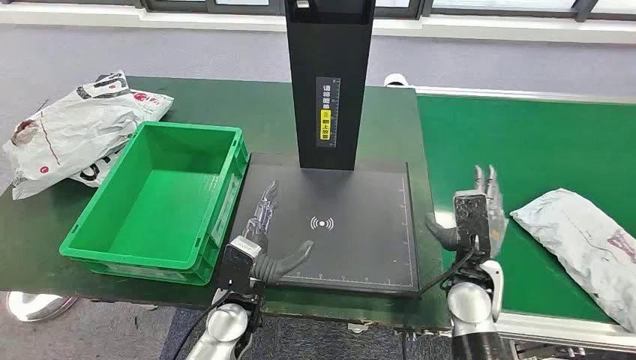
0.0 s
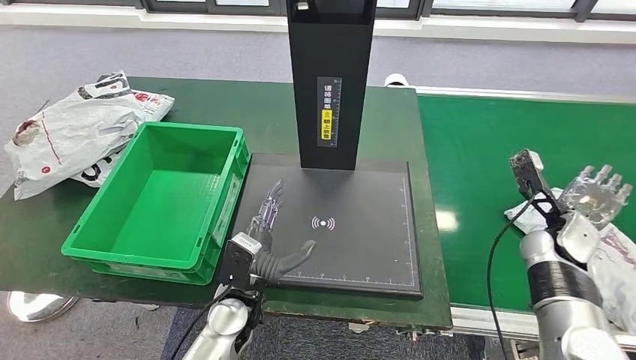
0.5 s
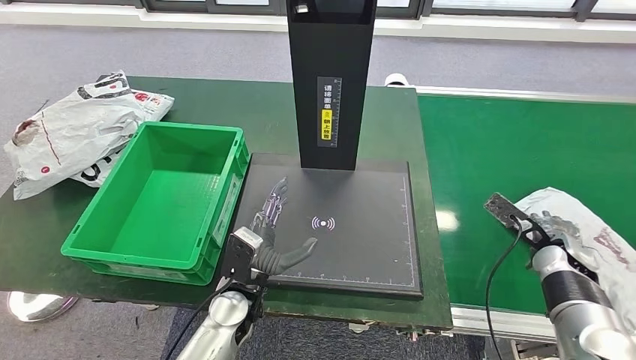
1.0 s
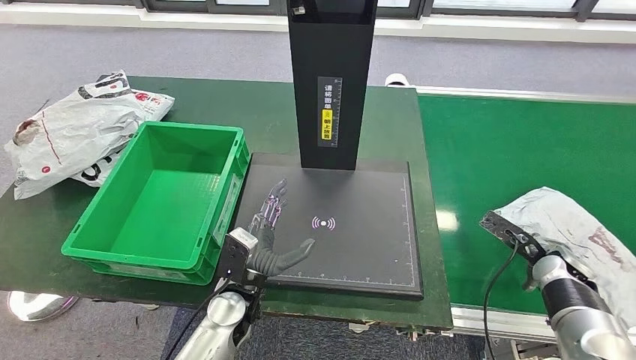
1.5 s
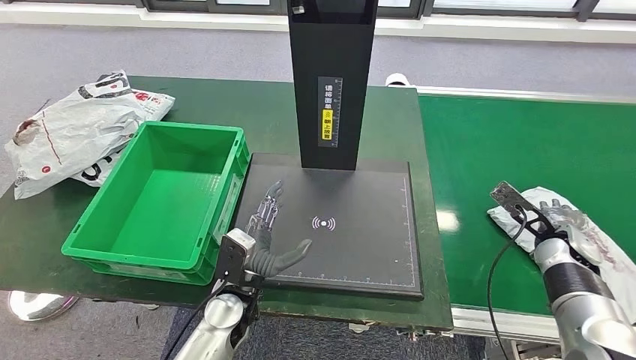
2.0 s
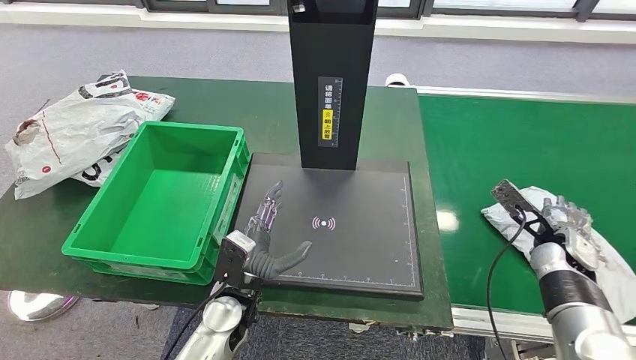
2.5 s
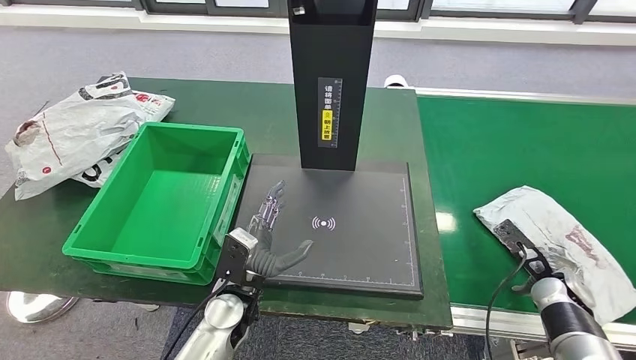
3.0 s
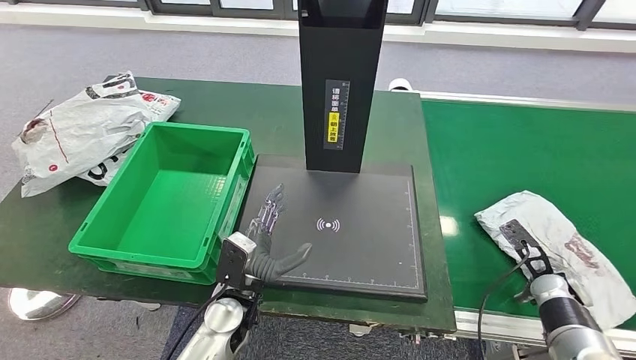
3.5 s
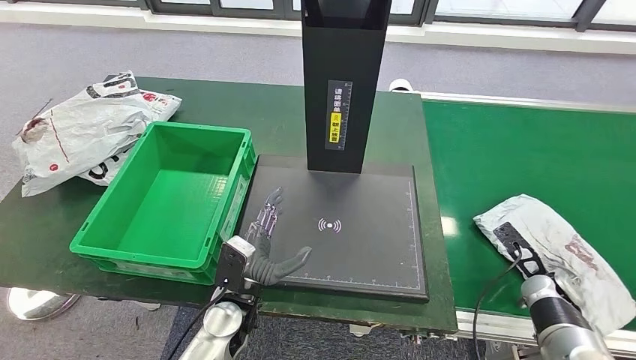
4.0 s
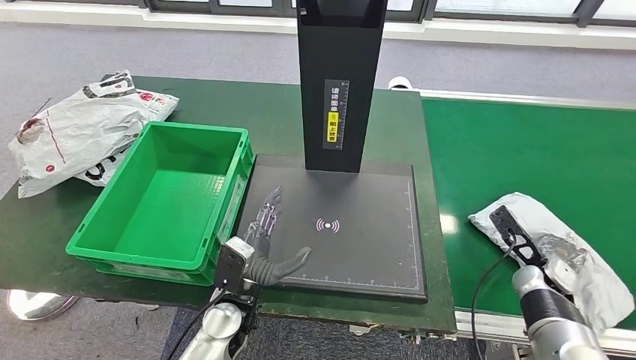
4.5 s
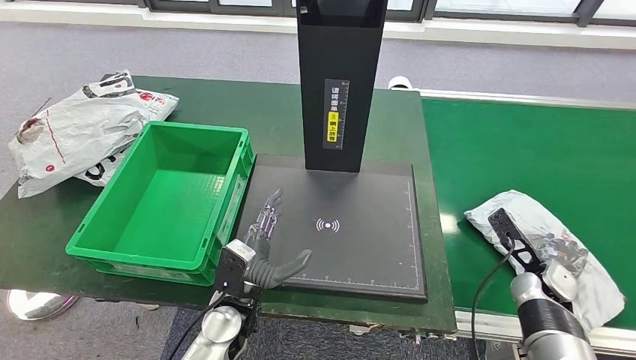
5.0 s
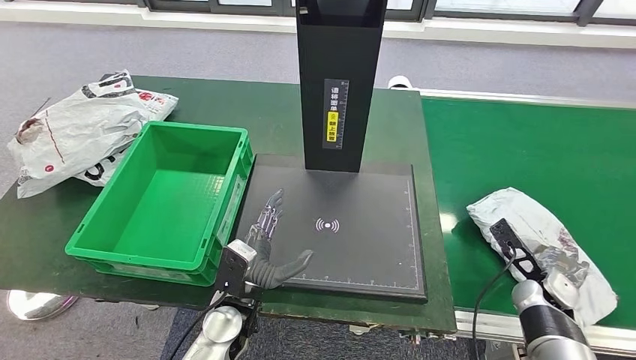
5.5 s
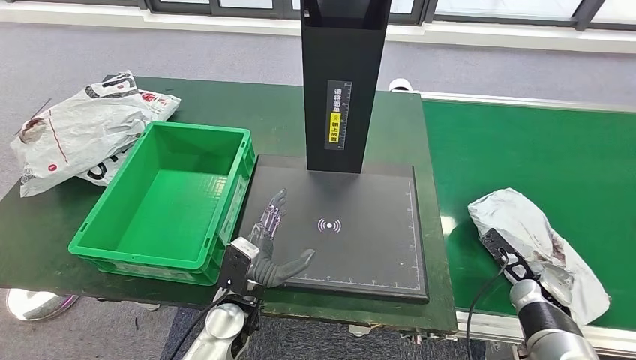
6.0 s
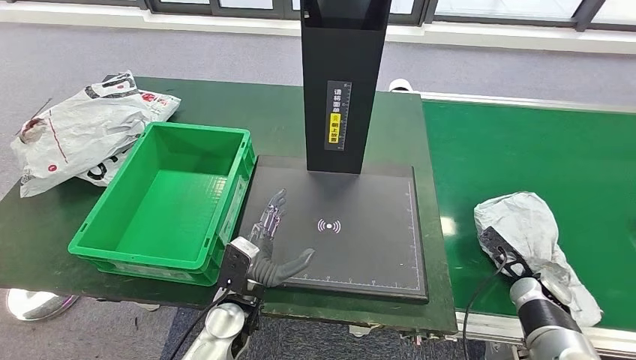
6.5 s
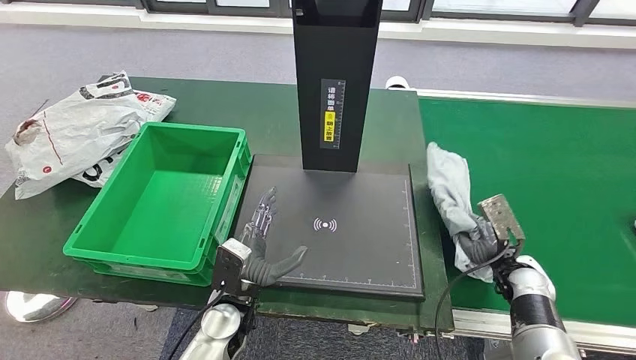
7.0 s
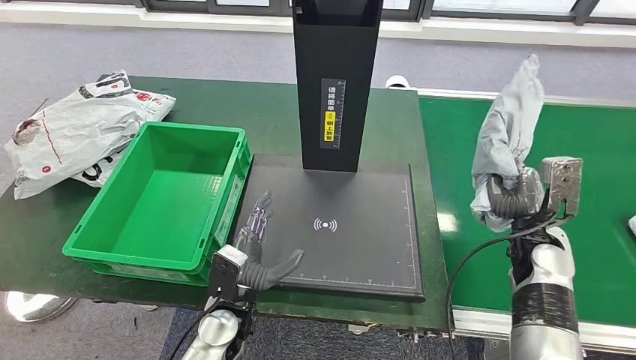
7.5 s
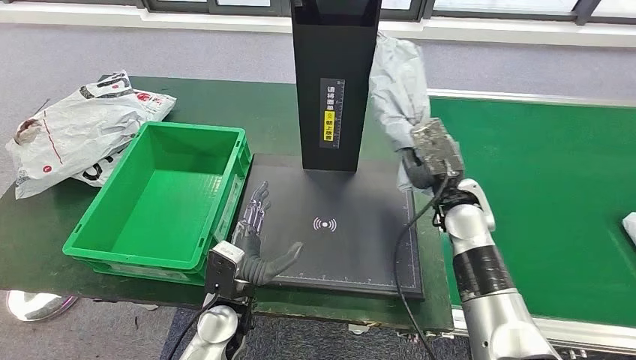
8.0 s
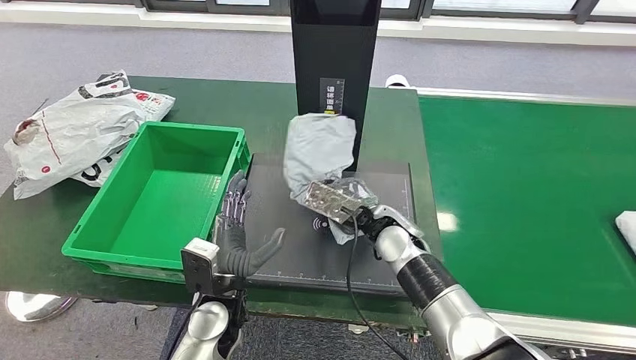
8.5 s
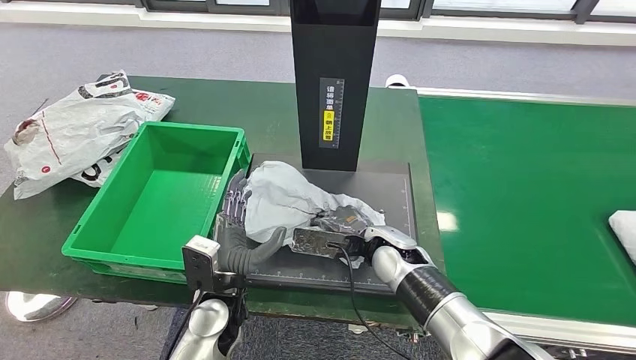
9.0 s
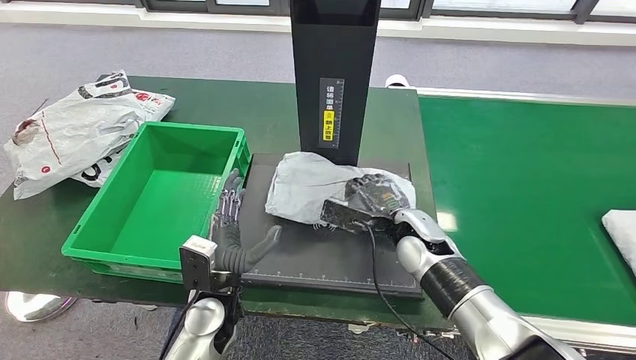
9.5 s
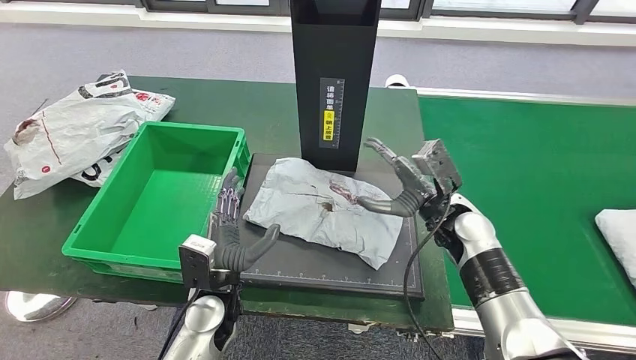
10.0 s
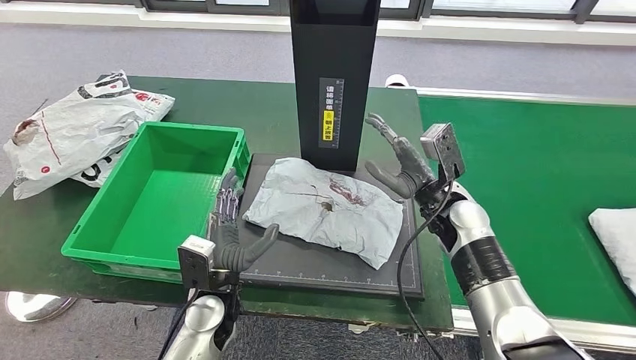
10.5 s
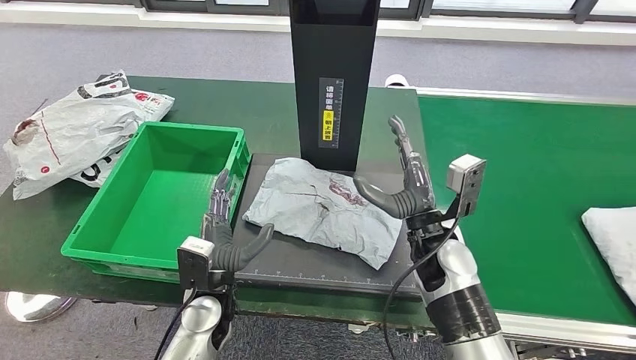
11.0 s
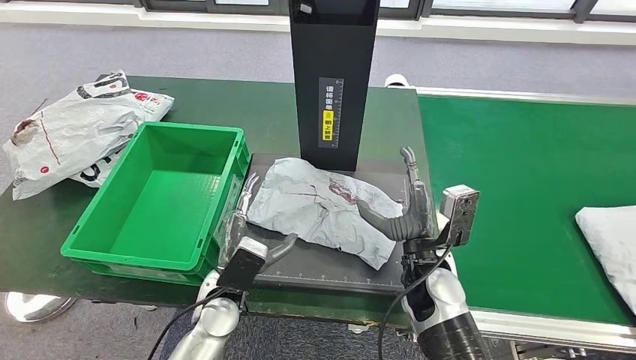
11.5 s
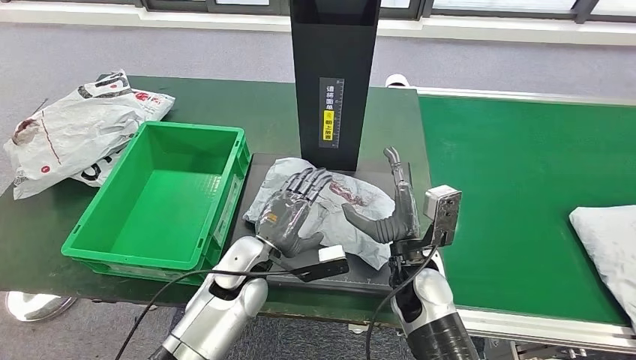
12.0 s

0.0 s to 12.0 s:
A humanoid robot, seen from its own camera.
Step, 0.0 to 7.5 s: Take the parcel off the conveyor belt.
Step, 8.0 to 10.5 s: Place the parcel onto the inbound machine.
4.0 to 6.0 s: The hands move only a little.
8.0 to 10.0 s: The right hand moves some 10 cm to the left and comes back.
10.0 to 12.0 s: The right hand travels to the left and backward by about 15 cm; the left hand is displaced forward by approximately 5 cm.

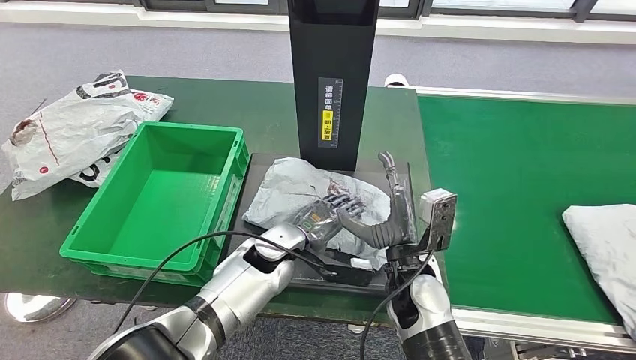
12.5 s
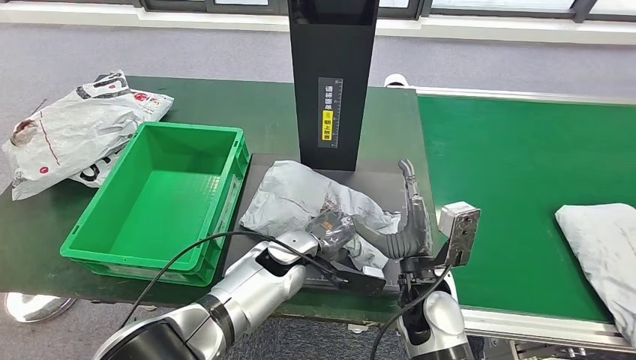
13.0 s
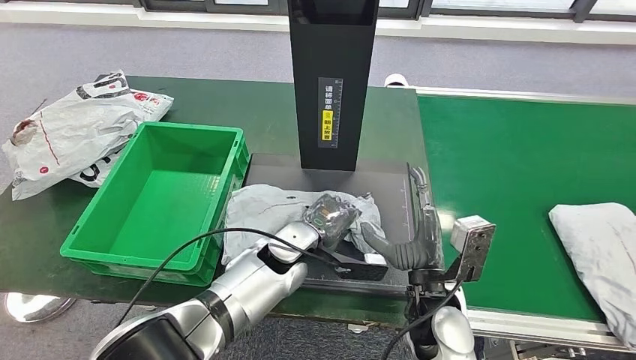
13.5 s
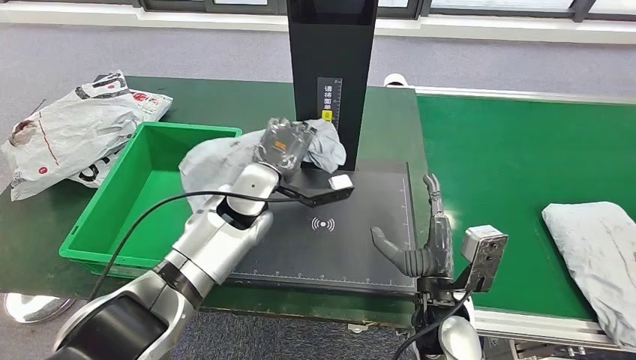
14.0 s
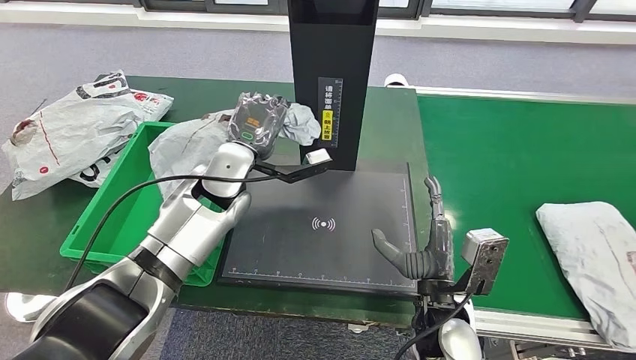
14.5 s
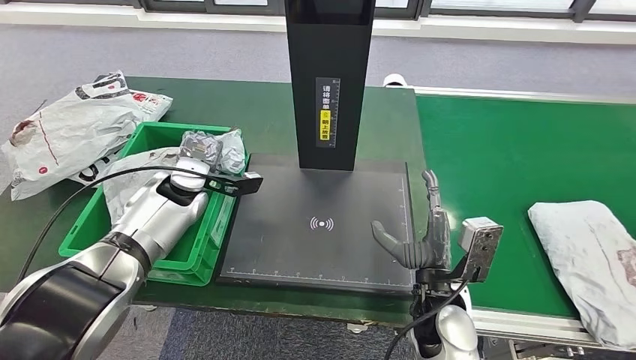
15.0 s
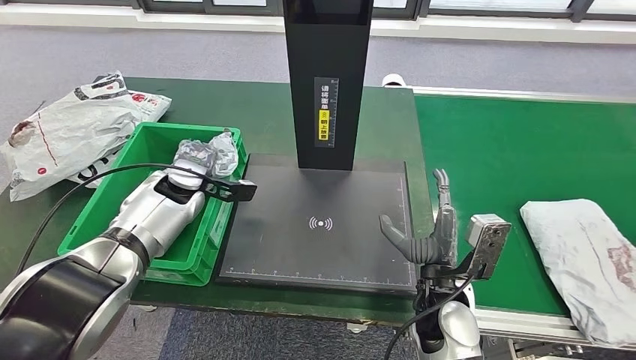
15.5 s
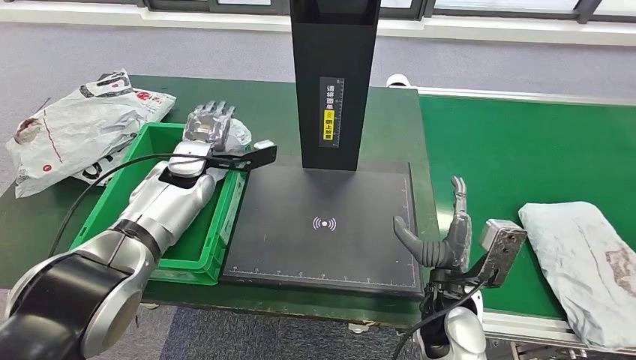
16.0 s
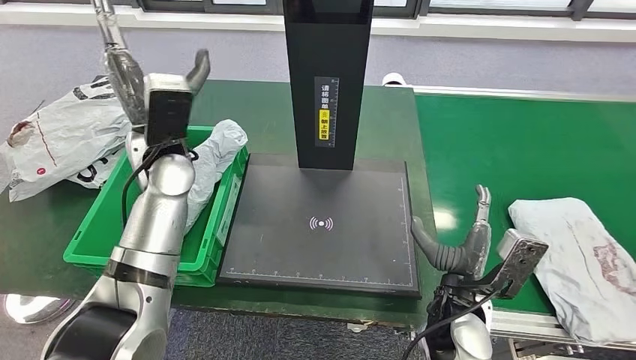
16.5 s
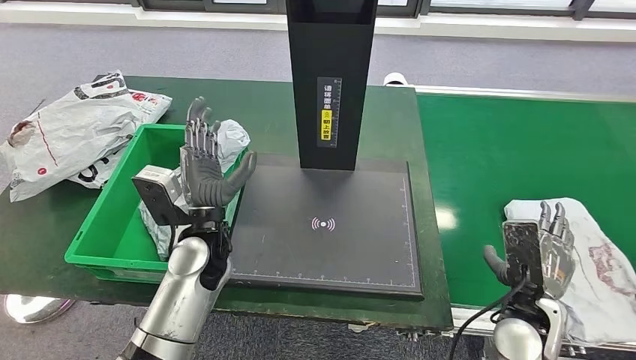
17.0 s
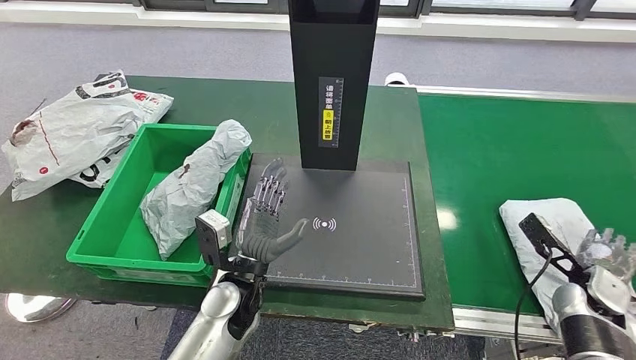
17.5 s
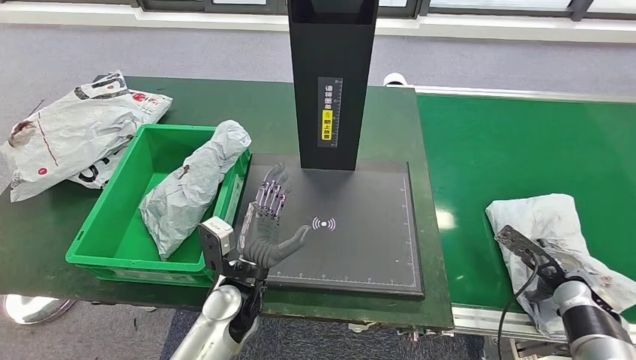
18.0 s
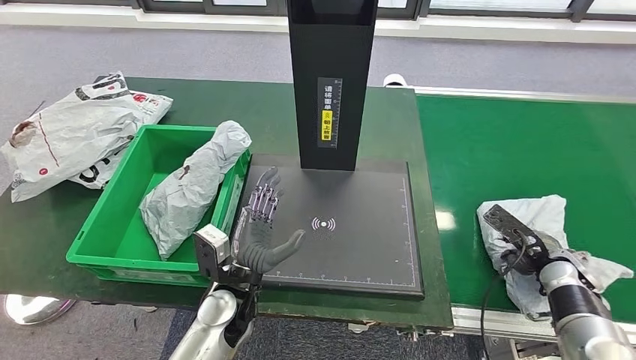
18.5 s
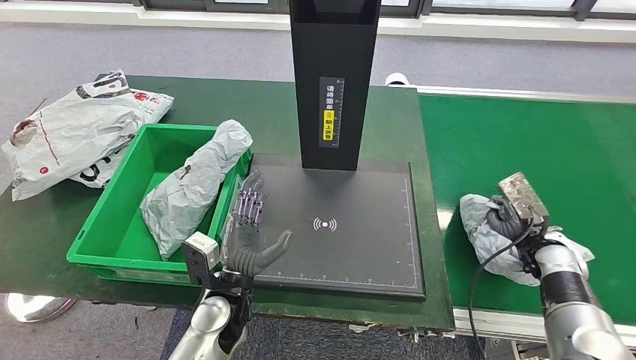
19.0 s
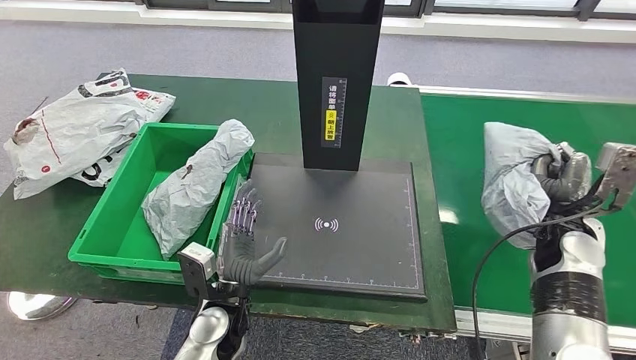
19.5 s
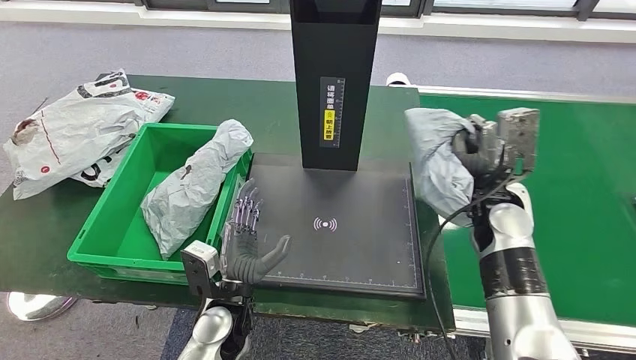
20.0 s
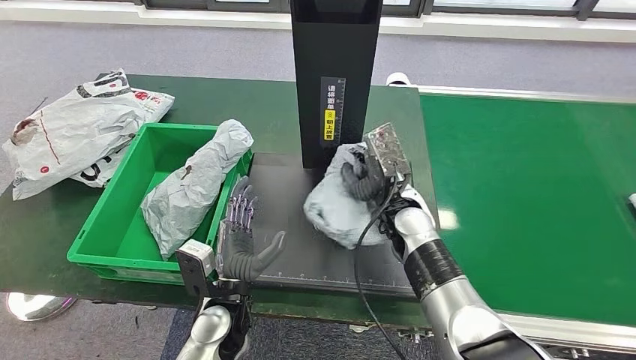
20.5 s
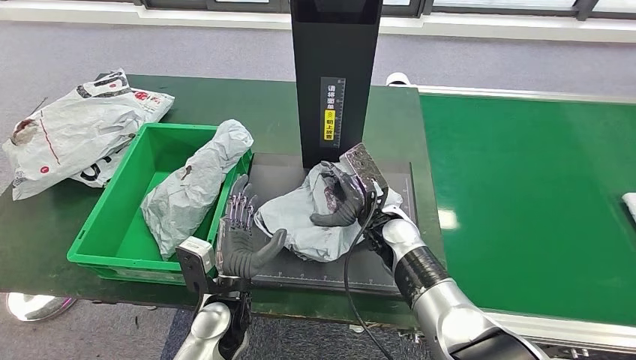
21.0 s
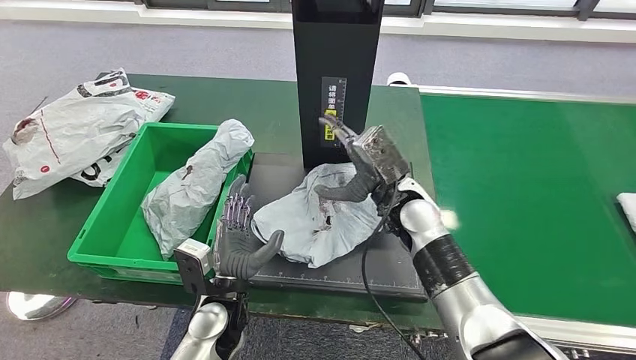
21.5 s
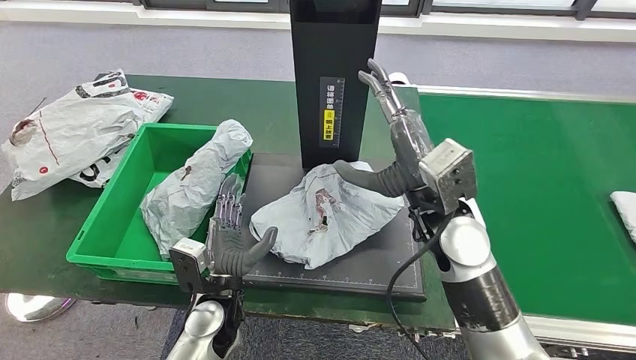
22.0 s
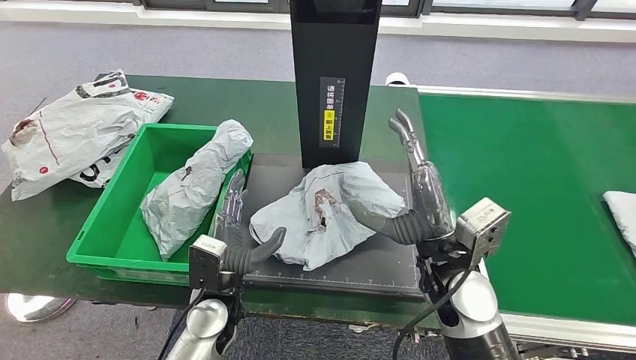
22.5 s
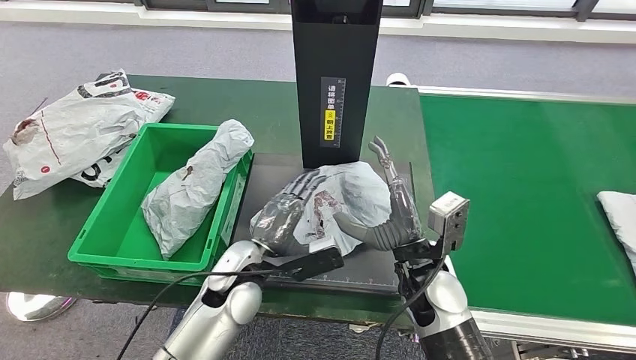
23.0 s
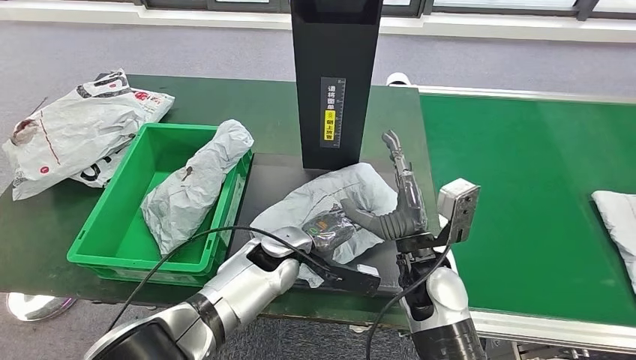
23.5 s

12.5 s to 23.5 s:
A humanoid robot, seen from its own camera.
Step, 14.5 to 16.0 s: Put the parcel inside the courier box.
Step, 16.5 to 19.0 s: Pick up the parcel from the conveyor belt.
Step, 19.5 to 22.0 s: Place the parcel onto the inbound machine.
21.5 to 23.5 s: The right hand moves backward, roughly 10 cm, and travels upward and back again, roughly 5 cm each way. The left hand moves forward and to the right, approximately 15 cm.
